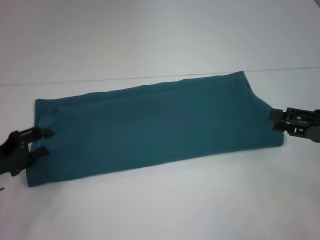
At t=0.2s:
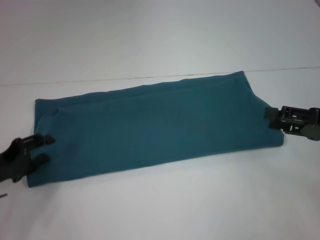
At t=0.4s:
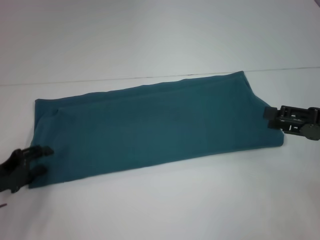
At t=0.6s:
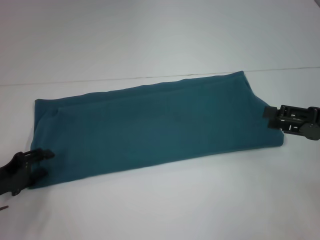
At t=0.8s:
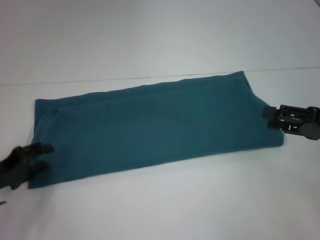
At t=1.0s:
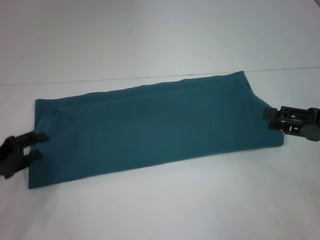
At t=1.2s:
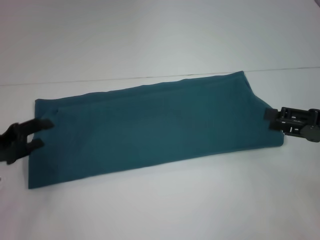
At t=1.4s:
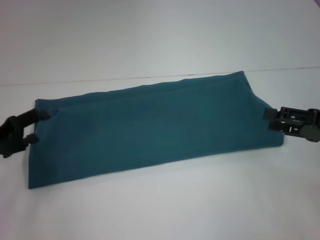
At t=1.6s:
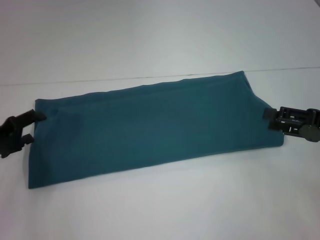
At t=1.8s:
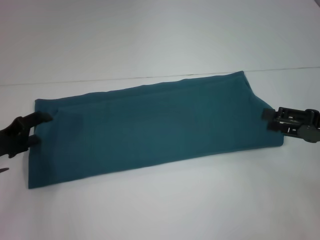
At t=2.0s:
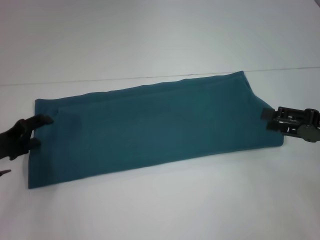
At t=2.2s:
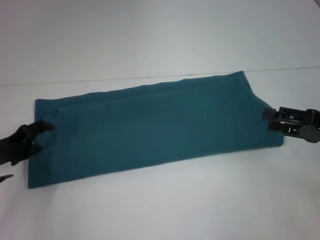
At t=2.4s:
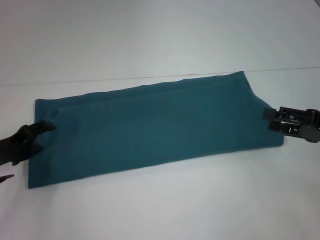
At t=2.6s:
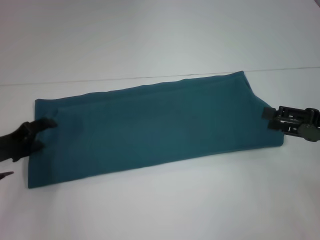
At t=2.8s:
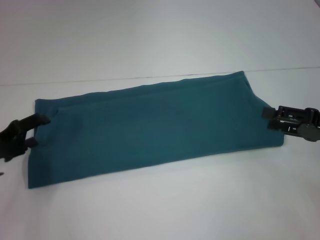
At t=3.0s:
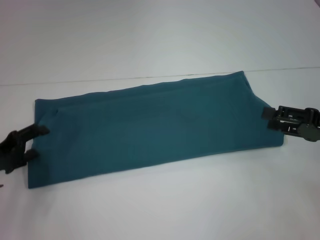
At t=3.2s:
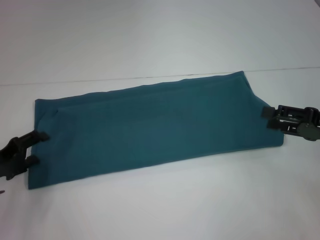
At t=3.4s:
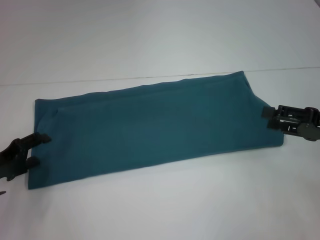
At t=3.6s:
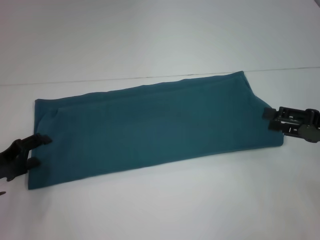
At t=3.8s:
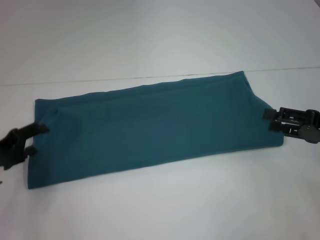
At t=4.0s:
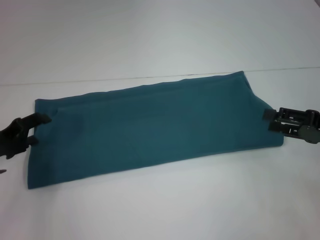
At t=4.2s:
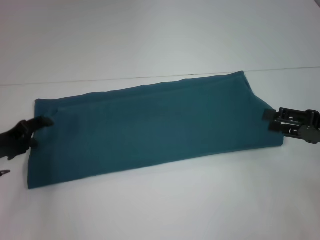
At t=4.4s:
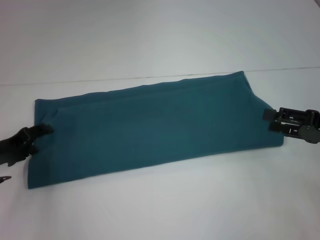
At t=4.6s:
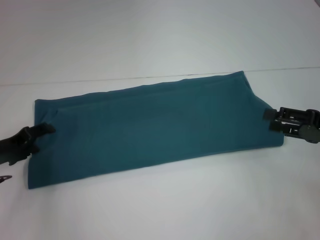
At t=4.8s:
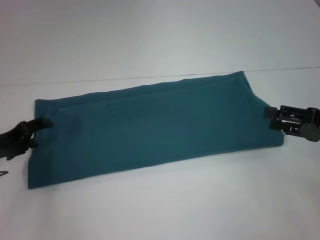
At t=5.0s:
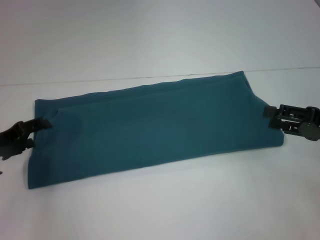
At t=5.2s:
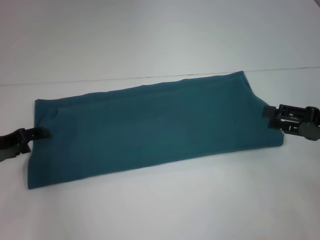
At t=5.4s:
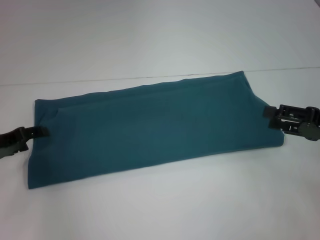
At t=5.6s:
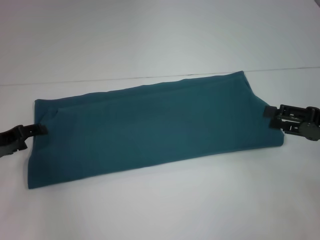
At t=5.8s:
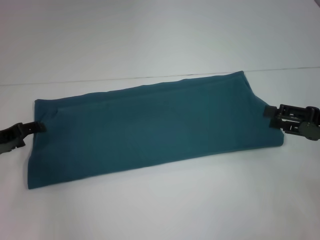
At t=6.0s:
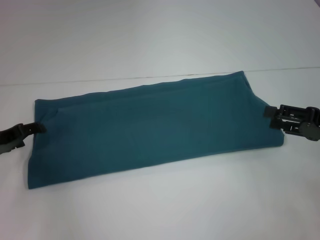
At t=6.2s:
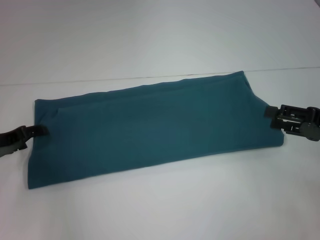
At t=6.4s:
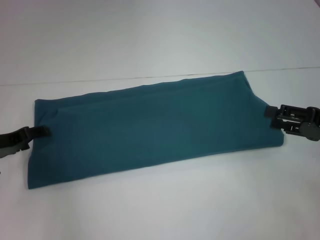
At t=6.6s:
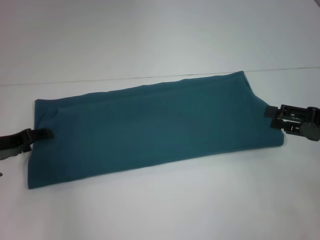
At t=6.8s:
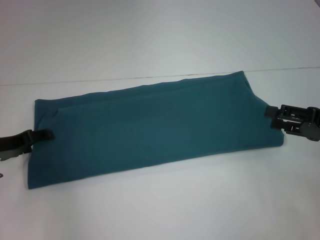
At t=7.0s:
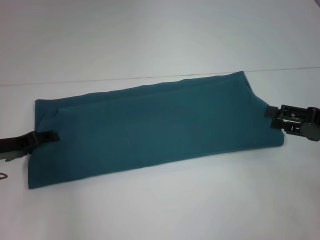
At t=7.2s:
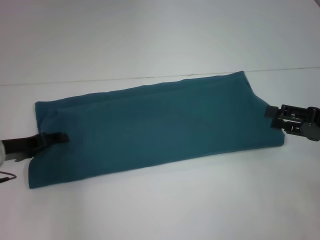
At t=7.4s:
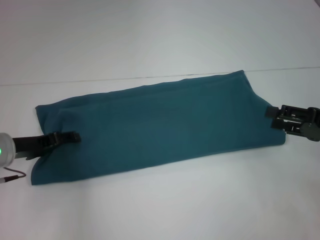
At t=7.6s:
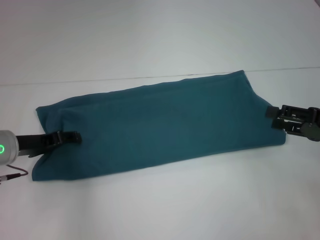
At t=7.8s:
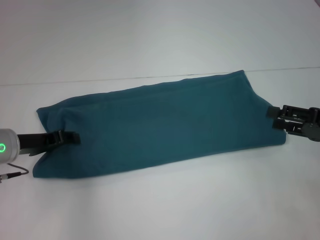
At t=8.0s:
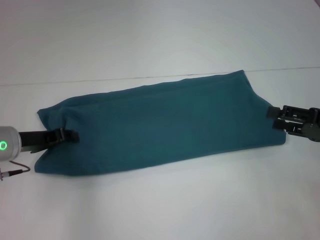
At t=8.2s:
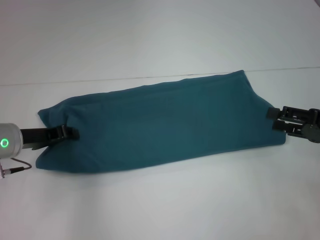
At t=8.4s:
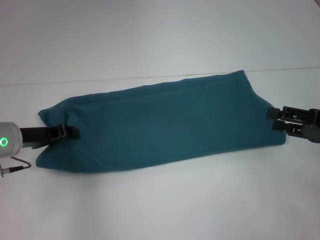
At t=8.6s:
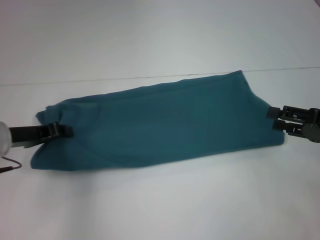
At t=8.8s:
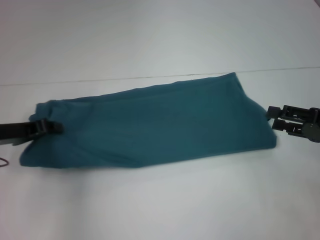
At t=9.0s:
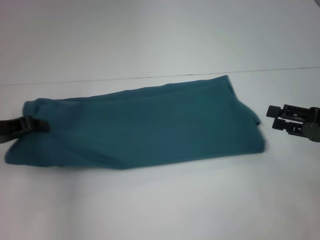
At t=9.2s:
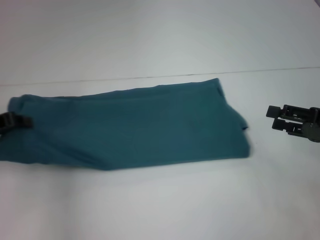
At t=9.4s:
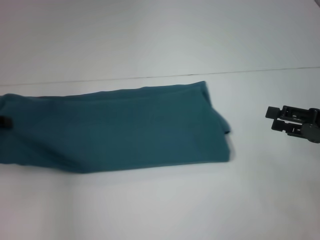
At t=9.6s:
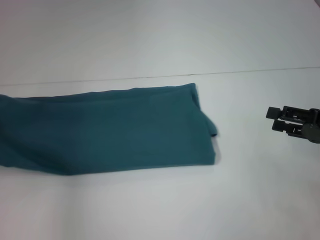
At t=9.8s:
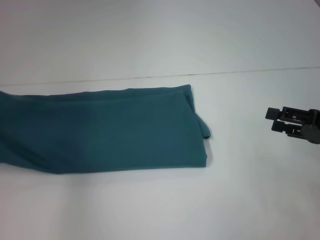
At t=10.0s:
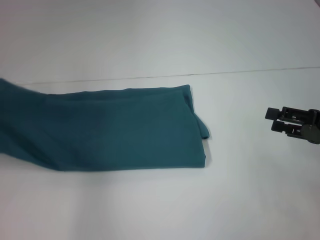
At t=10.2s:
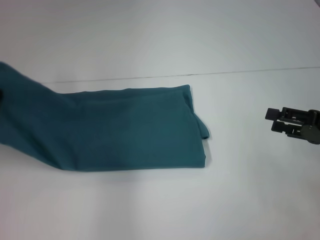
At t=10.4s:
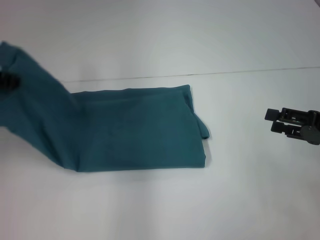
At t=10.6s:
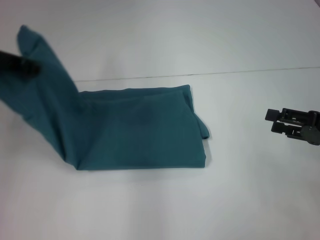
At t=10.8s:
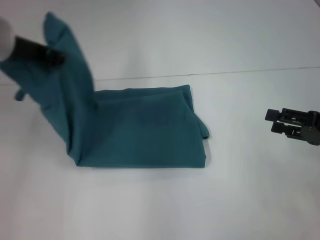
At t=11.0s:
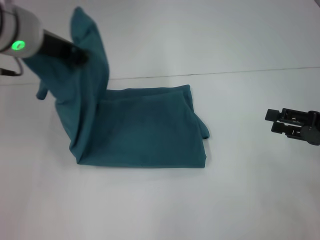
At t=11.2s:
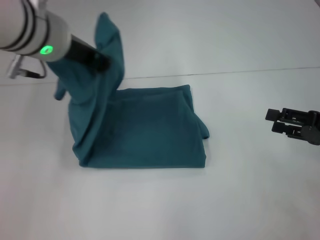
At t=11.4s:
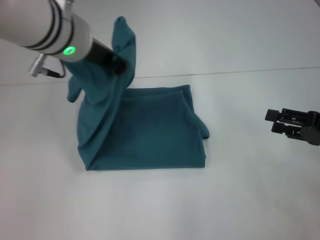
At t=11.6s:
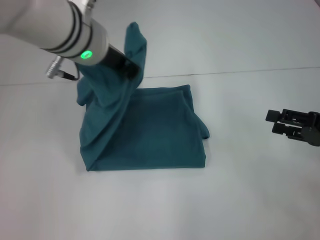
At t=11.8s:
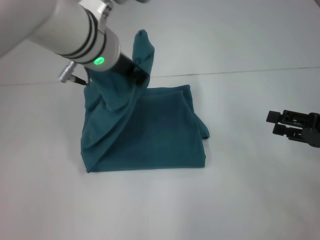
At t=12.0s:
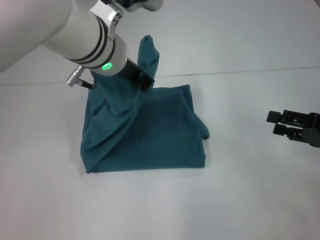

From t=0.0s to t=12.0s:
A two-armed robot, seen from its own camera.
From t=0.0s to t=4.4s: The grippers make only small movements.
From t=4.4s to t=6.0s: There are only small adjustments of the grippers.
From t=6.0s to t=7.6s: The left gripper shifts roughly 5 cm to the right.
From t=7.6s to t=9.0s: The left gripper changes place by roughly 5 cm, and closes its fingers.
From t=9.0s to t=10.4s: The left gripper is displaced upward by some 10 cm.
From t=10.4s to t=12.0s: The left gripper is displaced to the right by about 20 cm.

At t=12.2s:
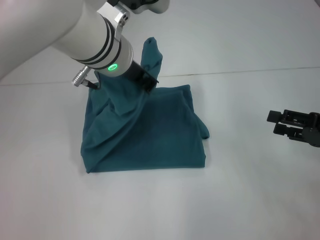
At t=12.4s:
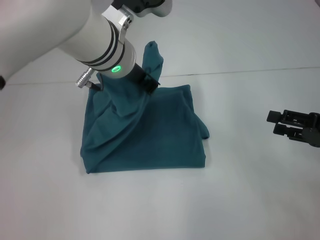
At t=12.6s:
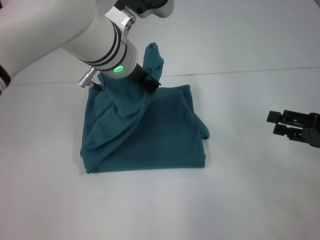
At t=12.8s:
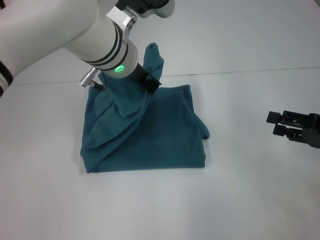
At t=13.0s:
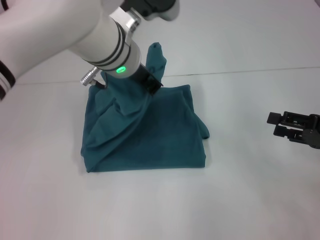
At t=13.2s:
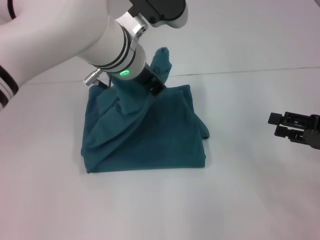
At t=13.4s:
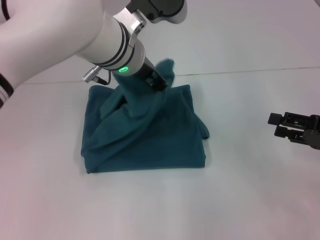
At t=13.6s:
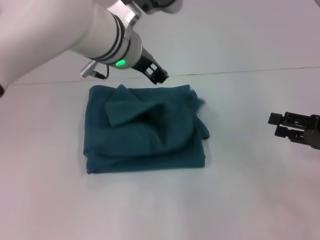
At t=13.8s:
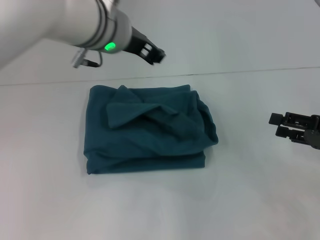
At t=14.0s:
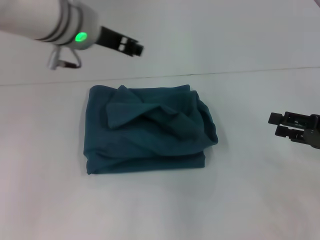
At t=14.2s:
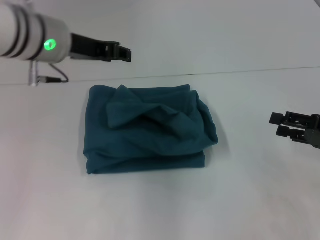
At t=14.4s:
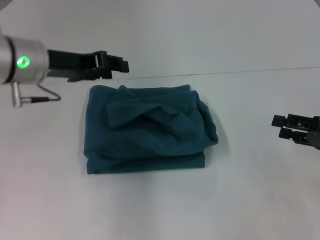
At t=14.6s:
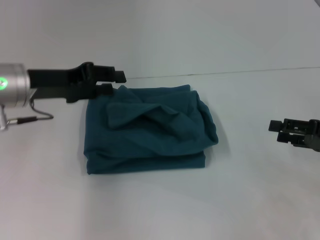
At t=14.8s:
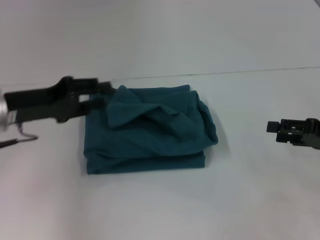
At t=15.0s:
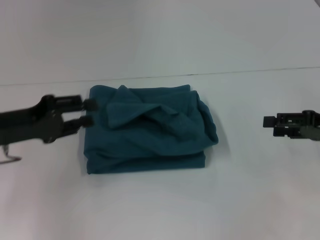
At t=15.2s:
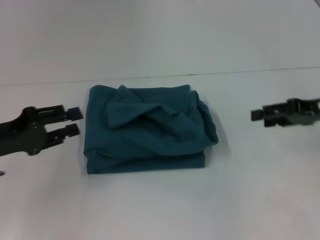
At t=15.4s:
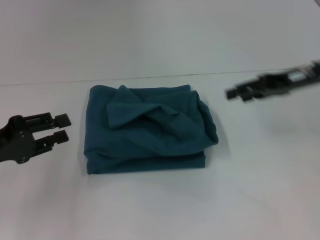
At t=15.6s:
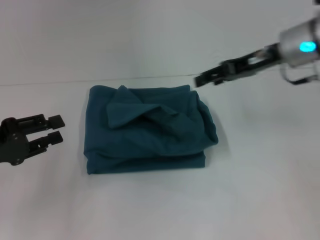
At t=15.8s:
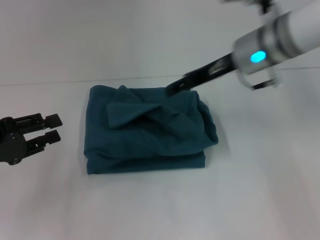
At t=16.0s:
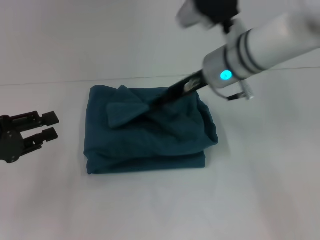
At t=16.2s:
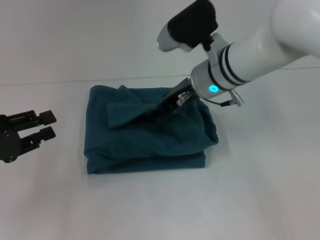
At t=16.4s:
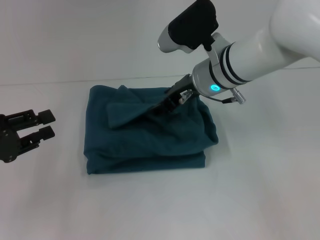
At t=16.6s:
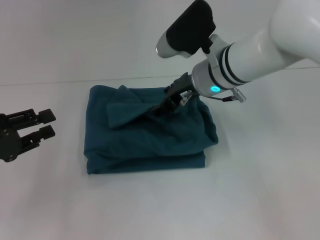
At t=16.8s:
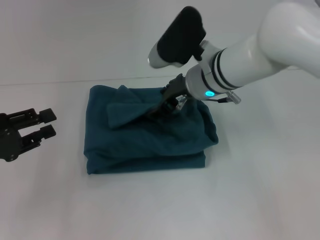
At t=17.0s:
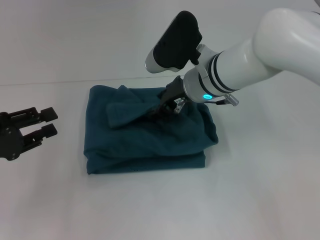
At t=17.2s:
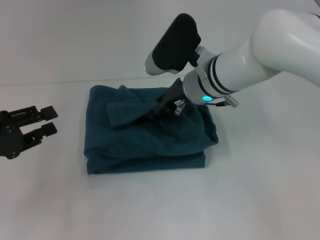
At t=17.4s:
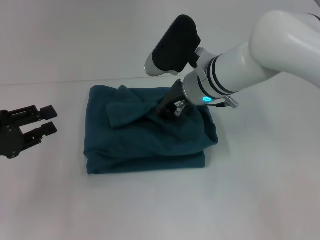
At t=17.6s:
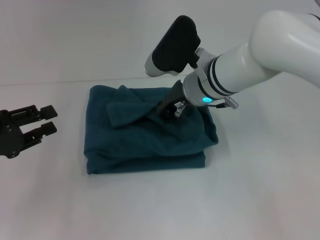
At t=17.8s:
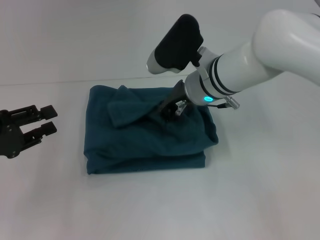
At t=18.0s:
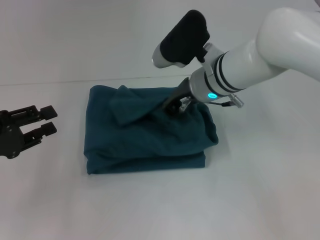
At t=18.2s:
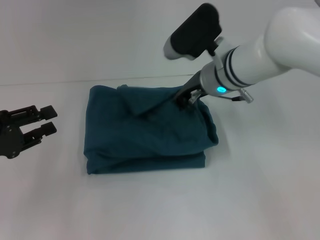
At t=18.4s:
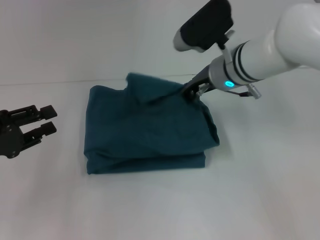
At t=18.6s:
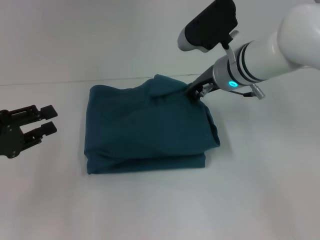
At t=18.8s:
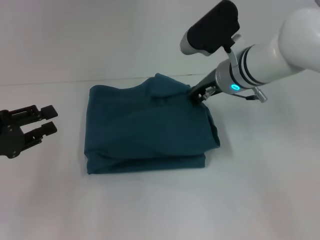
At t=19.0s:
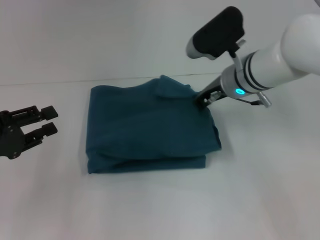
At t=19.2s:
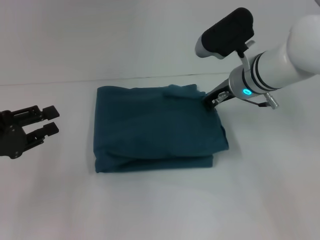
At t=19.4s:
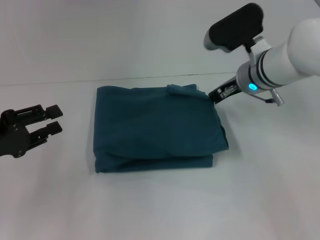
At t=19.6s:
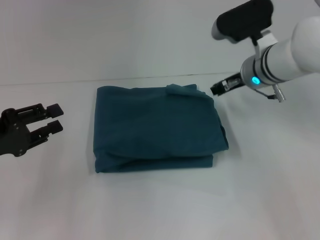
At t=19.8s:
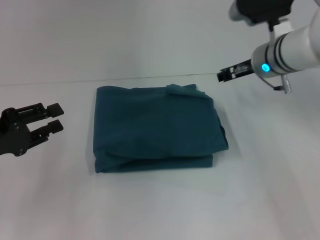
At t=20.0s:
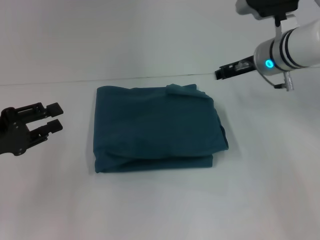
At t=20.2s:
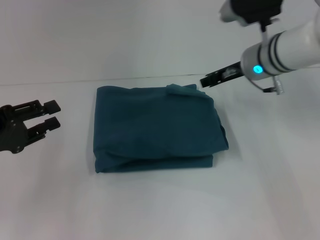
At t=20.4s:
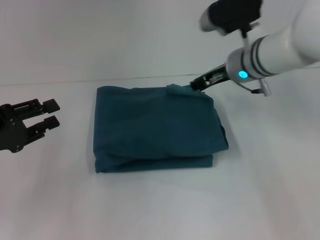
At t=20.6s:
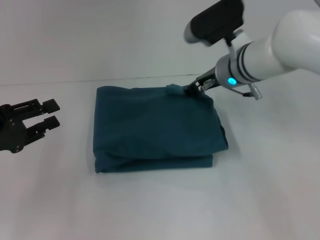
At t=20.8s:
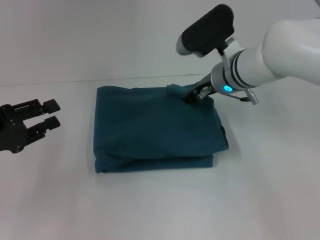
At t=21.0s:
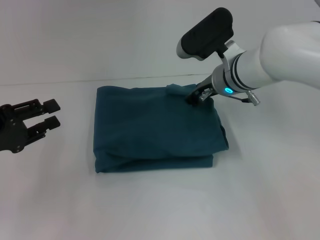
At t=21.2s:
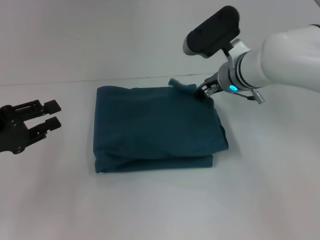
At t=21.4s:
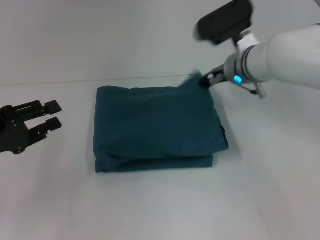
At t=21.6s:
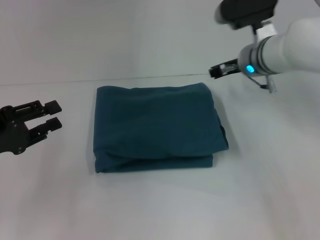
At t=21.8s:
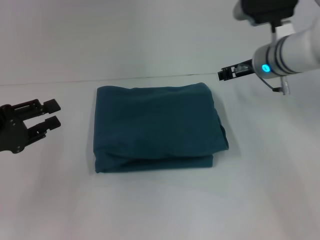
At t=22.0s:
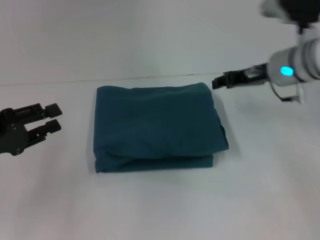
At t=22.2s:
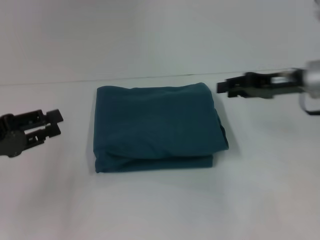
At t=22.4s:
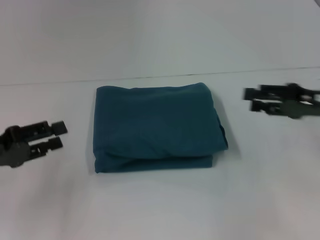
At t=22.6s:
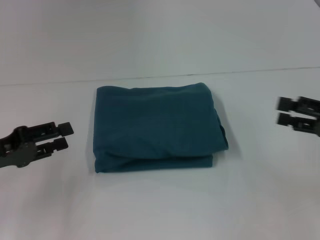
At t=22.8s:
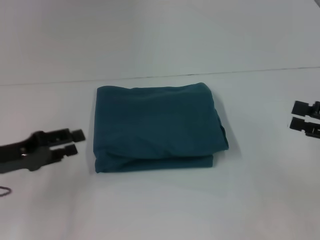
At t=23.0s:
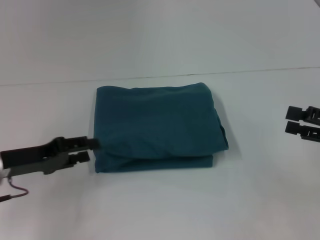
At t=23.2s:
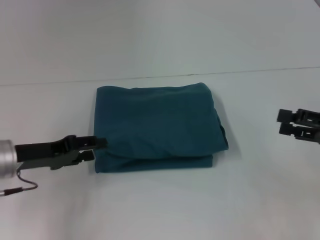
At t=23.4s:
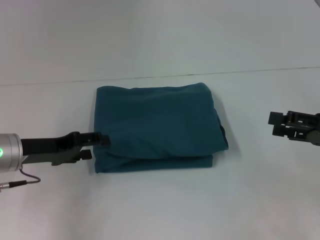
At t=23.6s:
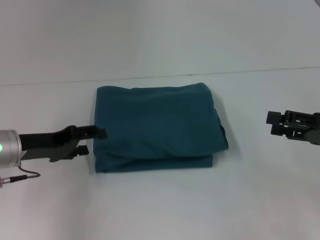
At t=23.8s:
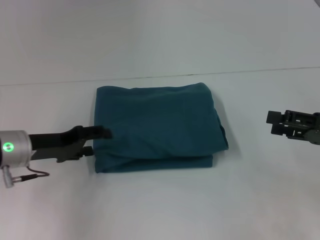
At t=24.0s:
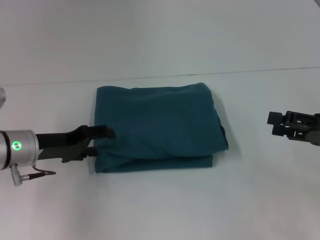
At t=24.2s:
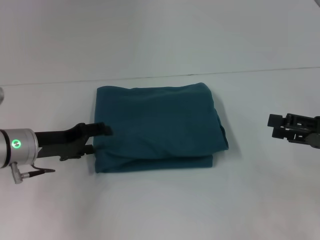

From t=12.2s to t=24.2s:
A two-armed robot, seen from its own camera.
From t=13.8s to t=15.2s: The right gripper moves forward and upward, approximately 10 cm. The left gripper travels to the left and downward by roughly 25 cm.
From t=15.2s to t=16.6s: The right gripper goes about 25 cm to the left.
From t=16.6s to t=18.2s: The right gripper closes up.
From t=18.2s to t=19.8s: The right gripper travels to the right by about 10 cm, and opens its fingers.
From t=19.8s to t=21.2s: The right gripper travels to the left by roughly 5 cm.
From t=21.2s to t=22.6s: The right gripper moves to the right and backward, about 25 cm.
From t=22.6s to t=24.2s: The left gripper moves to the right and forward, about 10 cm.
